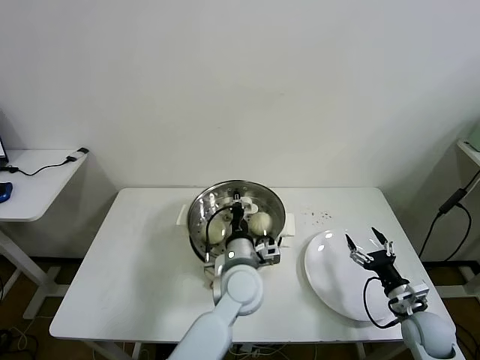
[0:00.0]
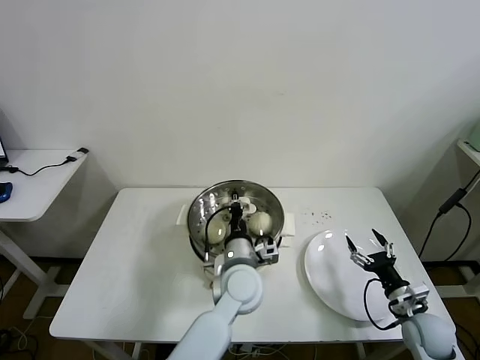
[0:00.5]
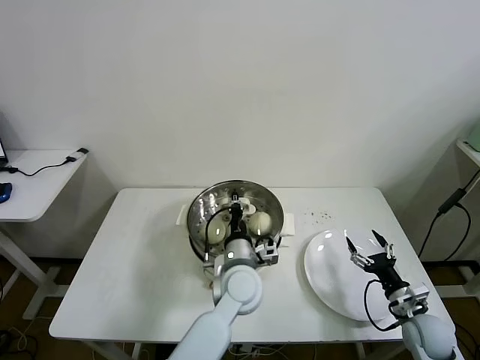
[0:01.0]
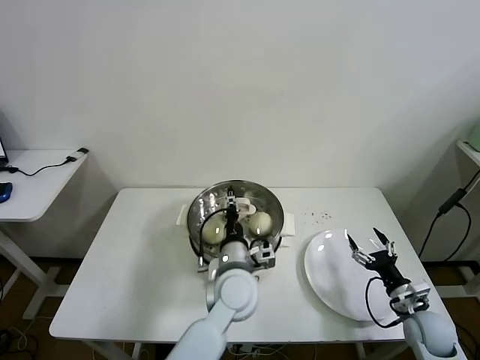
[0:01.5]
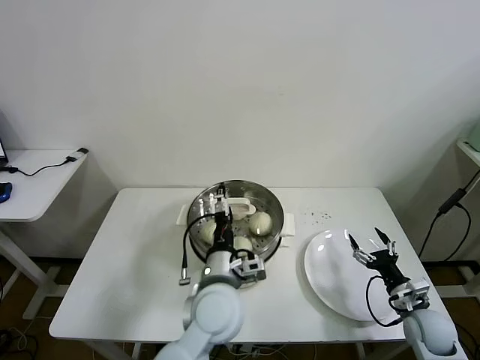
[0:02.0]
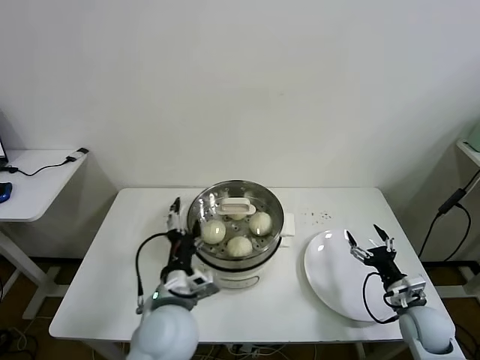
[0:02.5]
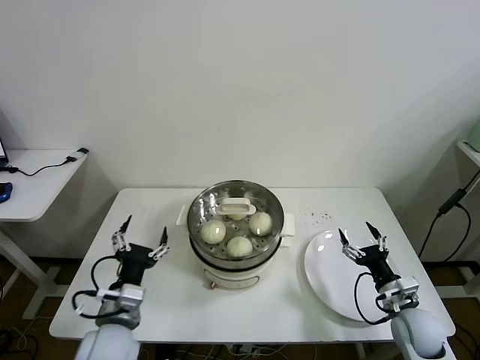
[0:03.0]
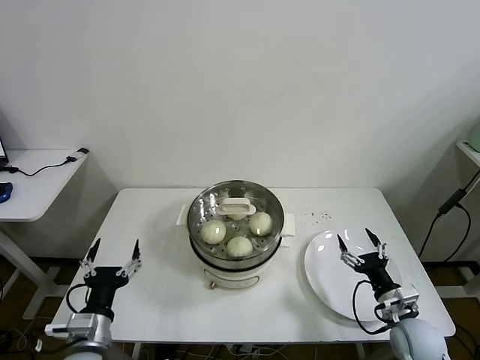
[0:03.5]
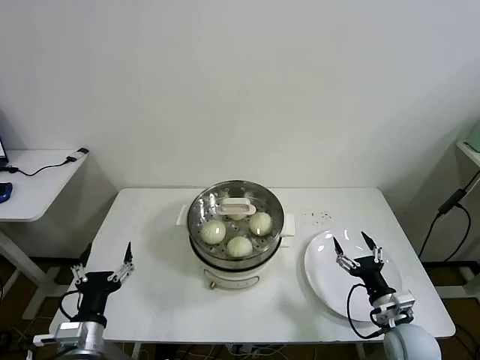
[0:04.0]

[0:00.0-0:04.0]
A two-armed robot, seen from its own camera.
Task of the whole recording: take steamed baozi put them in steamer then cover it.
0:00.0 to 0:02.0: The left gripper shifts by roughly 5 cm, and opens its fingers.
0:02.0 to 0:04.0: The right gripper shifts approximately 5 cm to the left, while the left gripper heads to the left and backward, covering about 30 cm.
